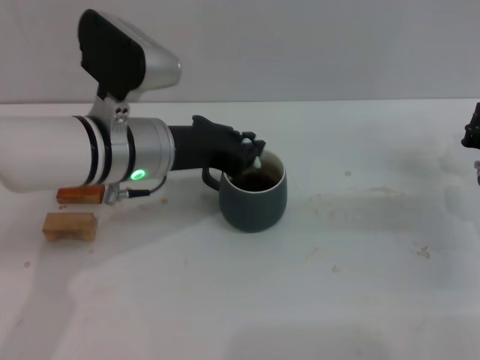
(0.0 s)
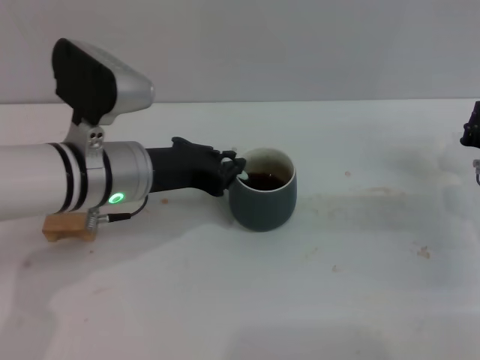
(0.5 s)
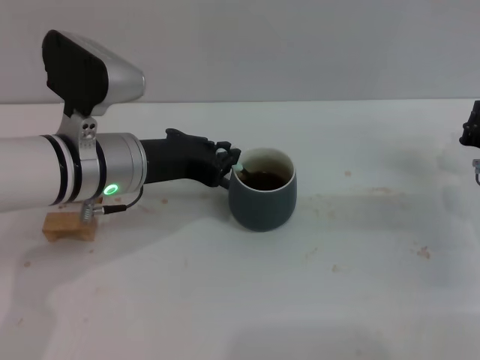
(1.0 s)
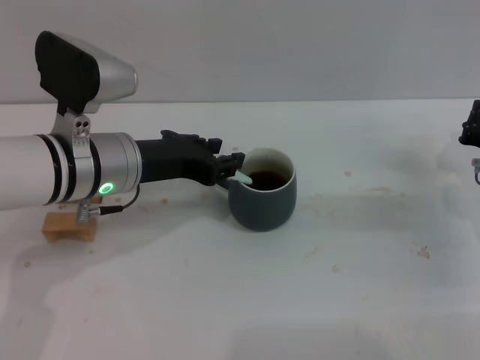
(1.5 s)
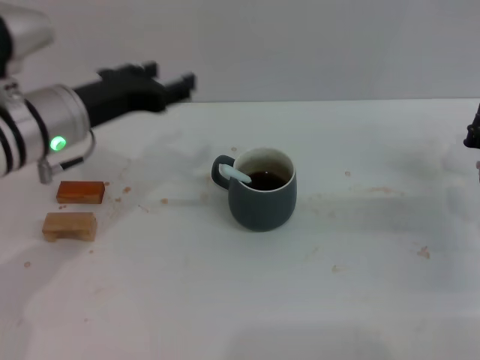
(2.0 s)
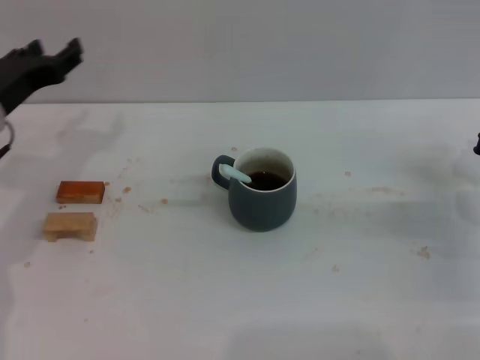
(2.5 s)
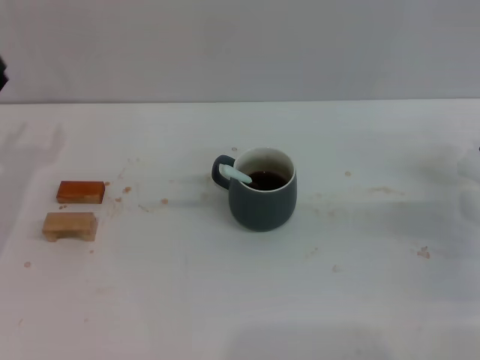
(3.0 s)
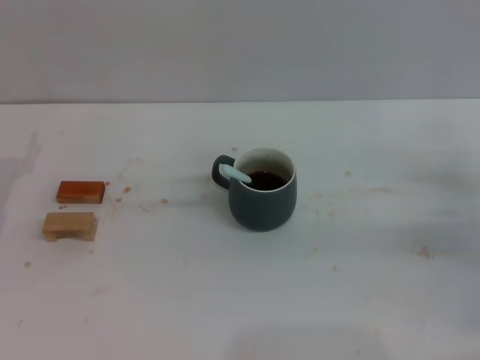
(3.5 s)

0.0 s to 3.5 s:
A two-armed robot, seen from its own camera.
Task of the whole recording: Move the grey cup to the center, lift the blue spoon, stir it three times in the cup, and put the spoon into the cup.
0.0 to 2.0 s: The left gripper moves to the left, about 5 cm, and opens up.
2.0 to 3.5 s: The left gripper goes about 15 cm to the left and downward.

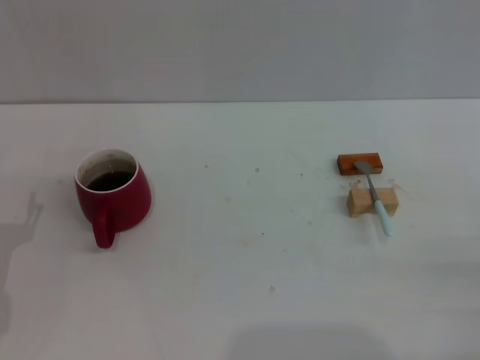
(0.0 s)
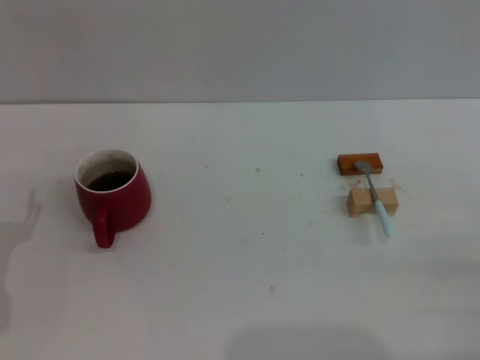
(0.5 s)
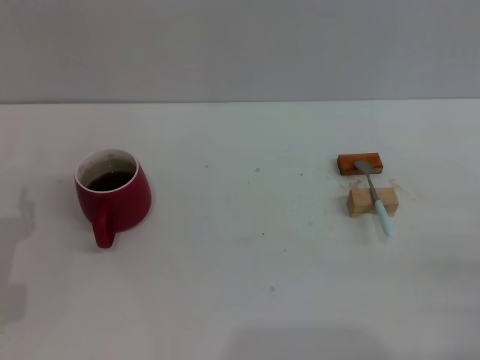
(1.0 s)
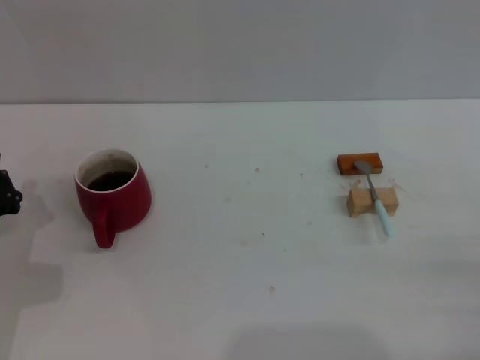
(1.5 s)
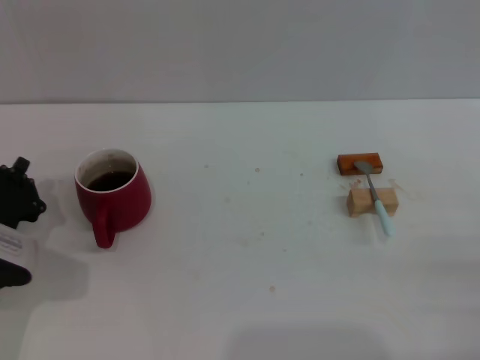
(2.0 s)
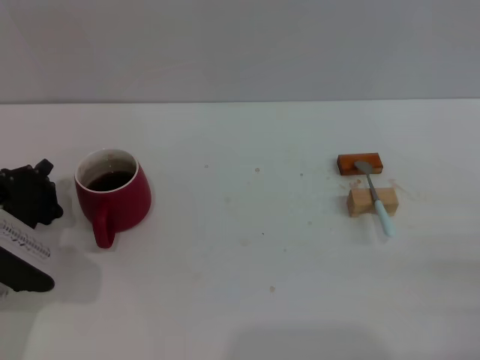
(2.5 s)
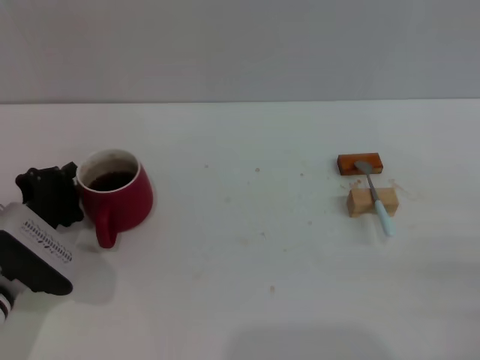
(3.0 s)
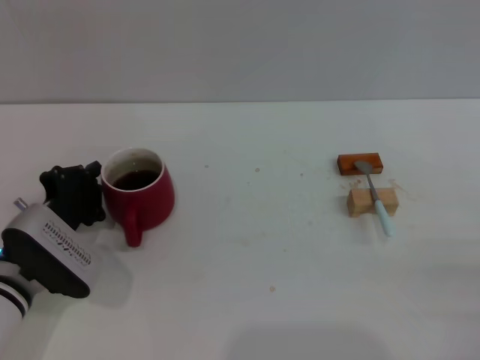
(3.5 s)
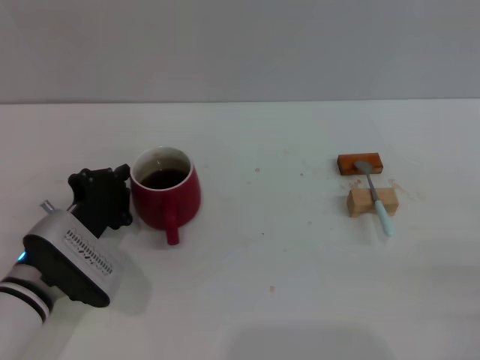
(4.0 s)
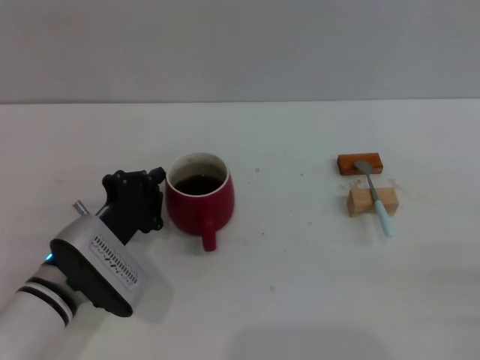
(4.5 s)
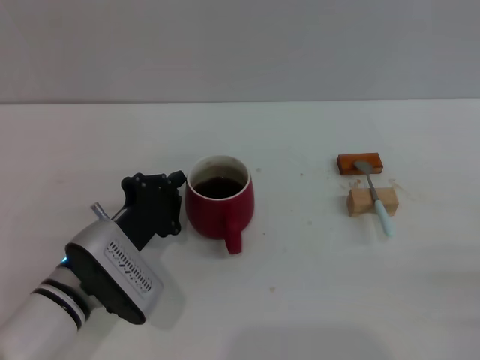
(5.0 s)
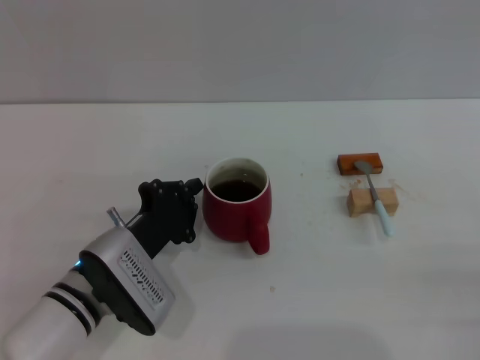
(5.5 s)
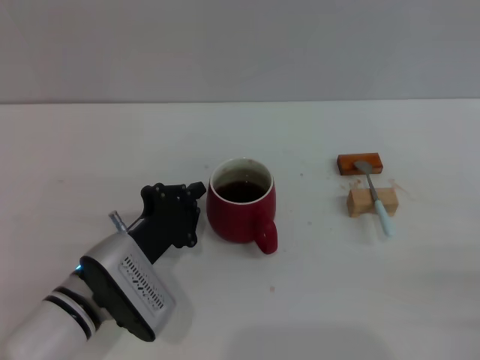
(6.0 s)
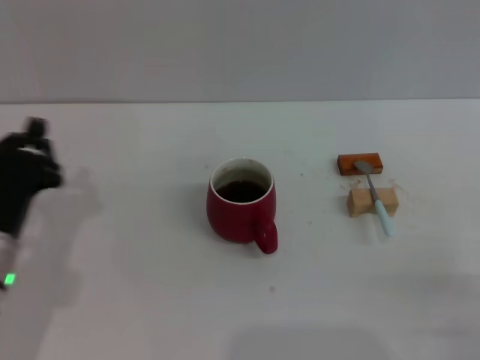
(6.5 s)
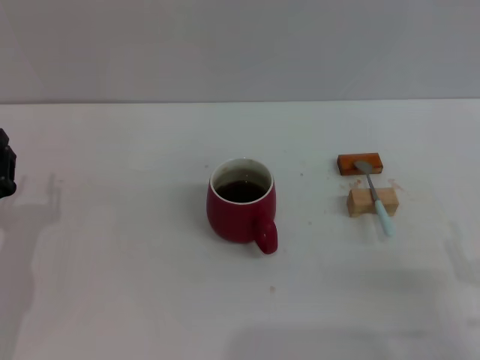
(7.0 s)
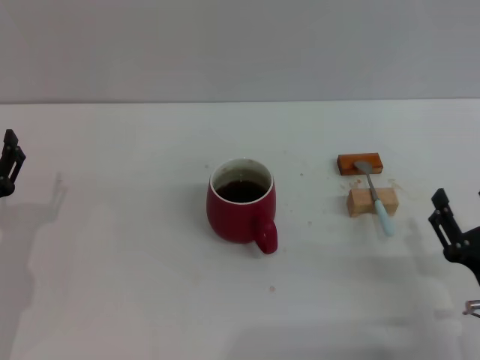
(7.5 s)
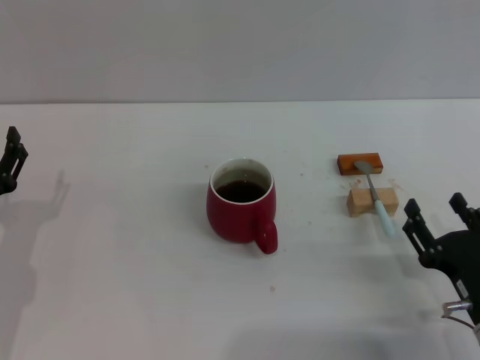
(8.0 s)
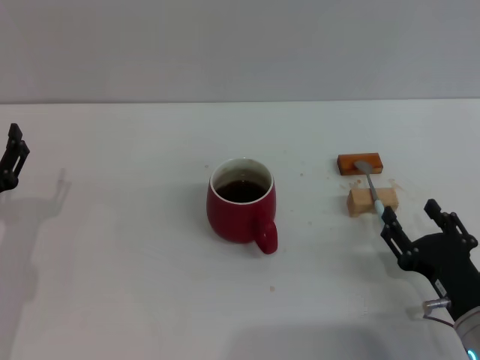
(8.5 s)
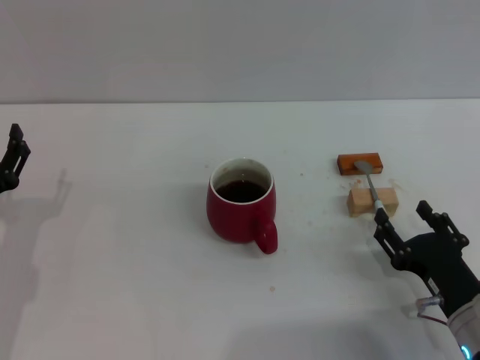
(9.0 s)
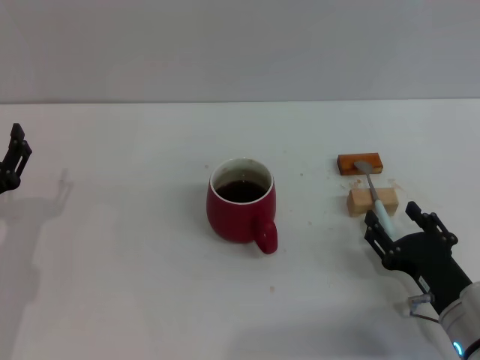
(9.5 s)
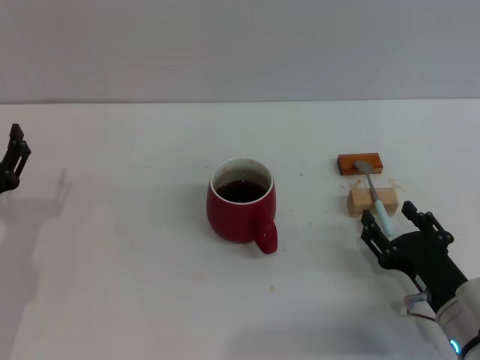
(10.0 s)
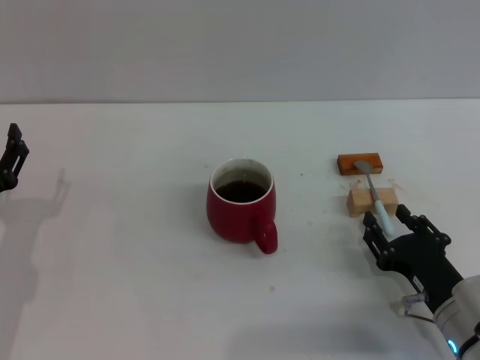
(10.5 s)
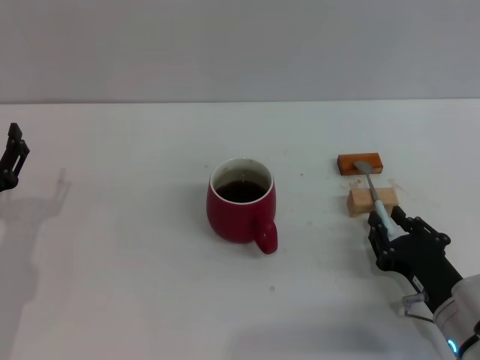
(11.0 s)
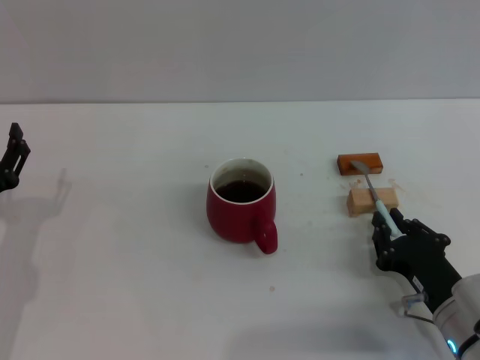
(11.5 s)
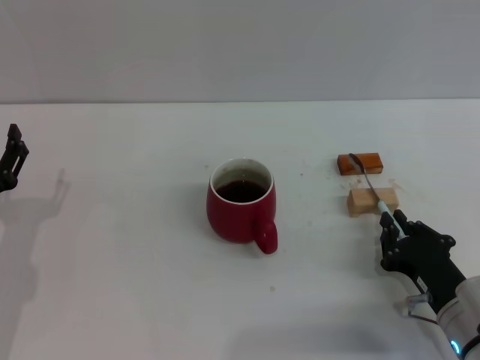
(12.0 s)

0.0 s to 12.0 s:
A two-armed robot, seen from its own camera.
Task of the whole recording: Move the red cup to the center, lift the blue spoon, stir it three times in the cup, and put the spoon into the cup.
Step, 0.0 to 6.0 s: Move the cup with coffee to the center of view with the left gripper.
0.0 to 2.0 s: The left gripper shifts some 5 cm forward, and closes its fingers.
2.0 to 4.0 s: The left gripper travels to the right by about 5 cm.
4.0 to 6.0 s: The left gripper moves to the right, about 5 cm.
6.0 to 8.0 s: Both grippers move to the left, roughly 10 cm. The left gripper opens up.
8.0 to 10.0 s: The grippers stay close to where they were, moving slightly.
10.0 to 12.0 s: The right gripper closes up.

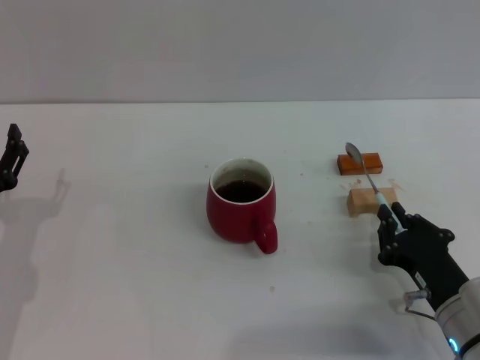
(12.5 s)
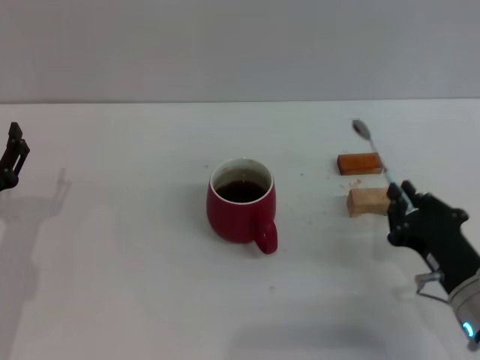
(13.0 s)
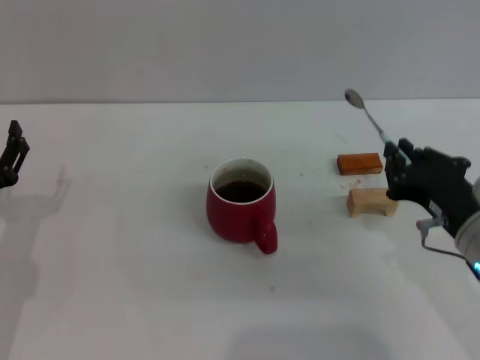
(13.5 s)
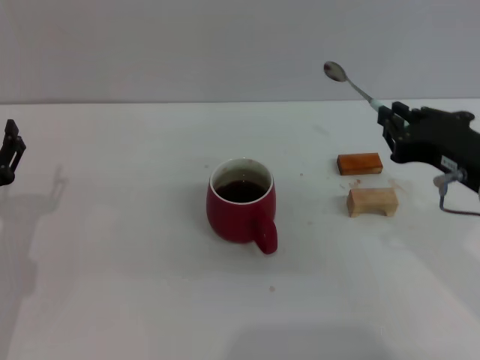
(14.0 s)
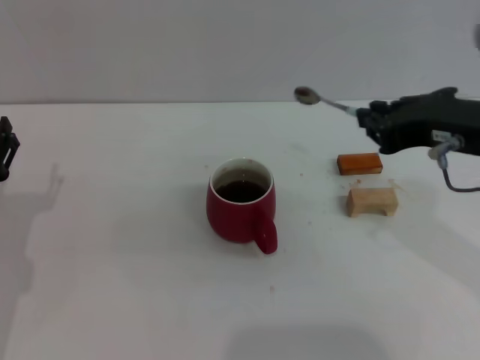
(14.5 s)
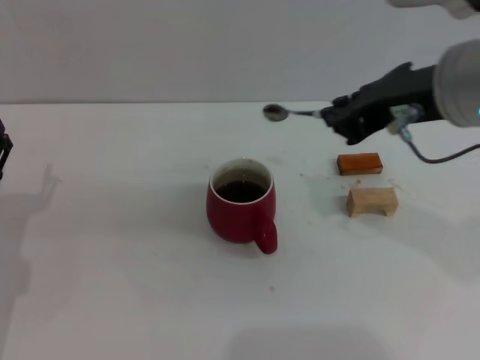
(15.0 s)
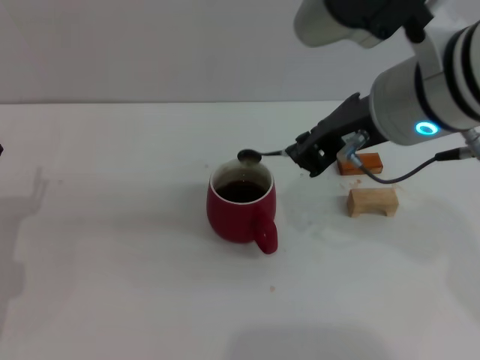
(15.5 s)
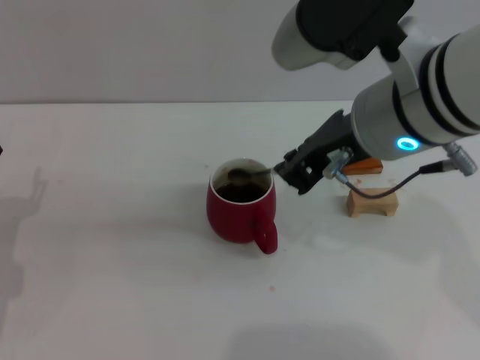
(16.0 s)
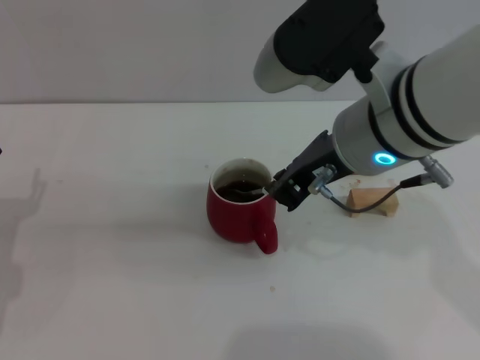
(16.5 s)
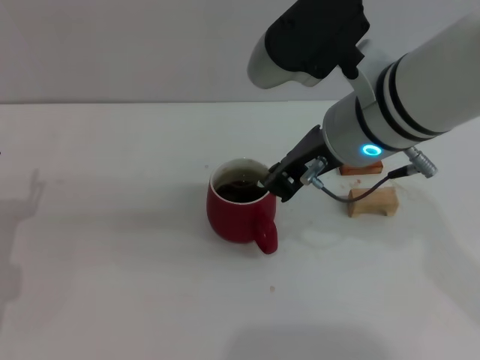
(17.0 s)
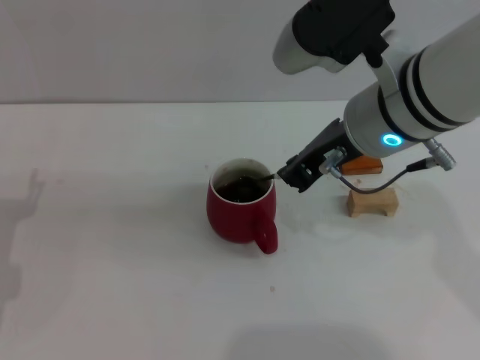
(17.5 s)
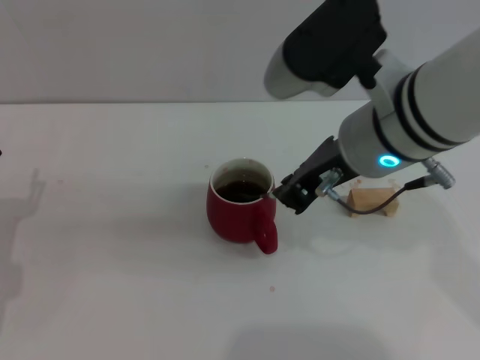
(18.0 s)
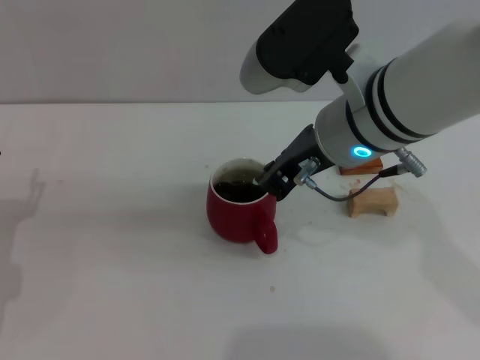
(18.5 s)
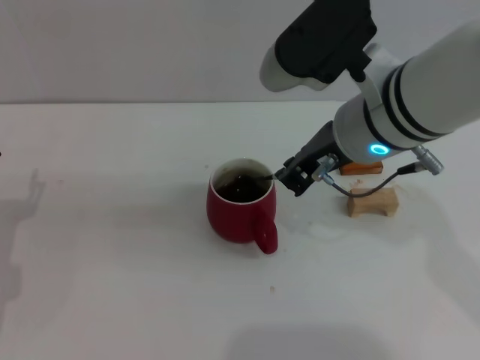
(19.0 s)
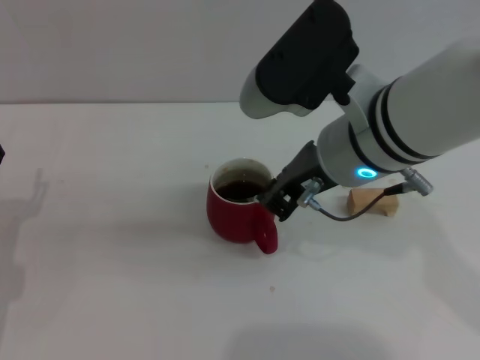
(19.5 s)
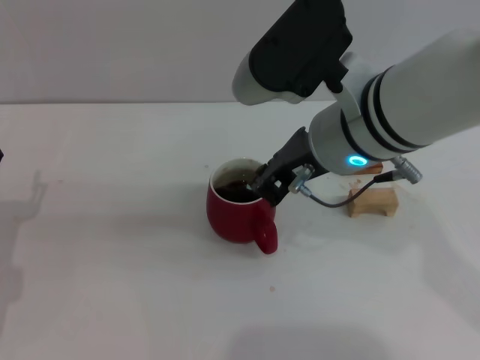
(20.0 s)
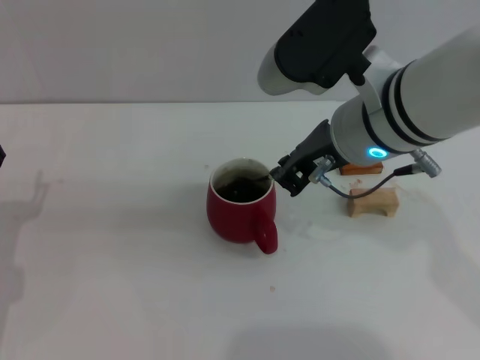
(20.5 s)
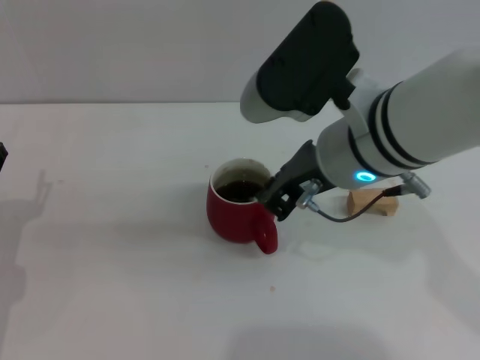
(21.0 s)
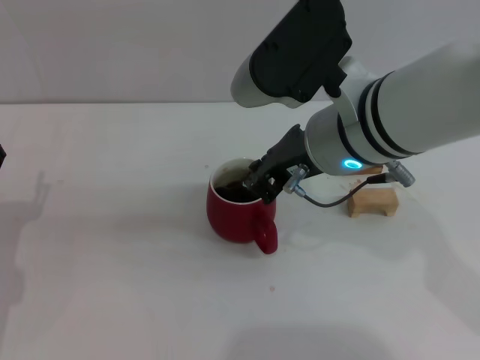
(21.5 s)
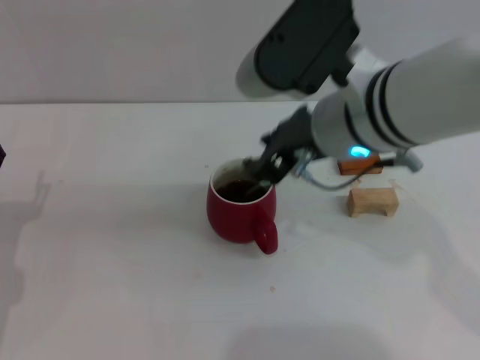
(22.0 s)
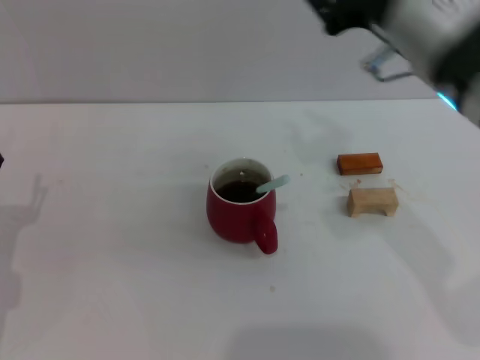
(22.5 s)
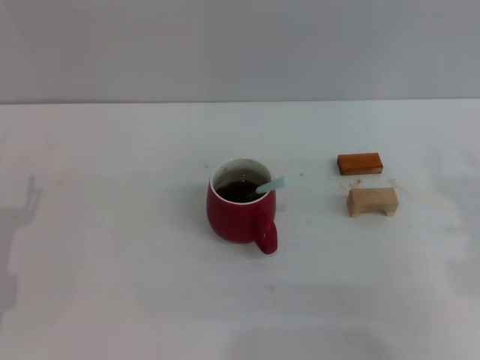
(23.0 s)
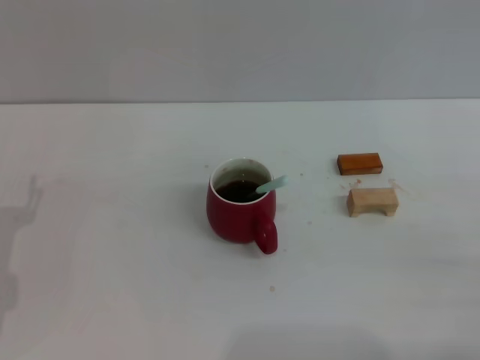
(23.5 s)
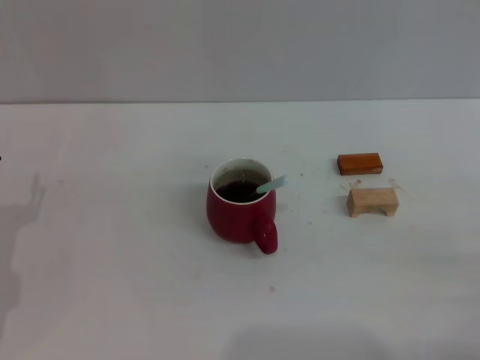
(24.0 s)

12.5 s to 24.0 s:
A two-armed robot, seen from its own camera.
Task of the whole recording: Move the red cup to the center, lift the blue spoon, stir it three times in the cup, and put the spoon into the cup.
Step, 13.5 to 22.0 s: Stir the coffee in the cup with the right gripper.
12.5 to 14.5 s: The right gripper is displaced upward by roughly 25 cm.
14.5 to 16.5 s: The right gripper travels to the left by roughly 10 cm.
16.5 to 22.0 s: The grippers stay close to where they were, moving slightly.
22.0 to 24.0 s: The right gripper goes some 35 cm to the right, downward and backward, and opens its fingers.
